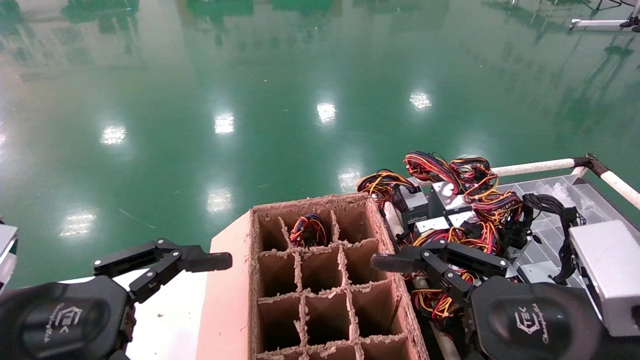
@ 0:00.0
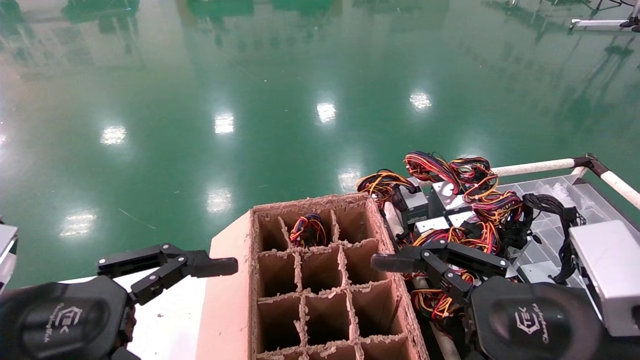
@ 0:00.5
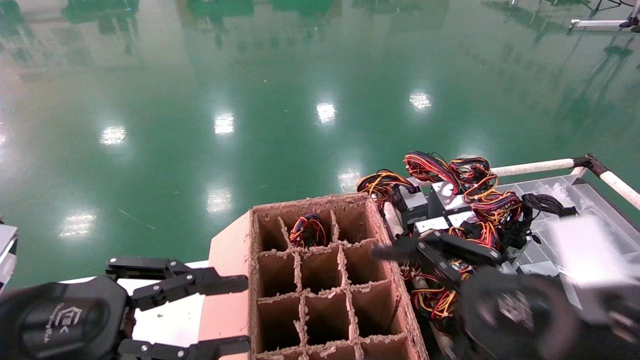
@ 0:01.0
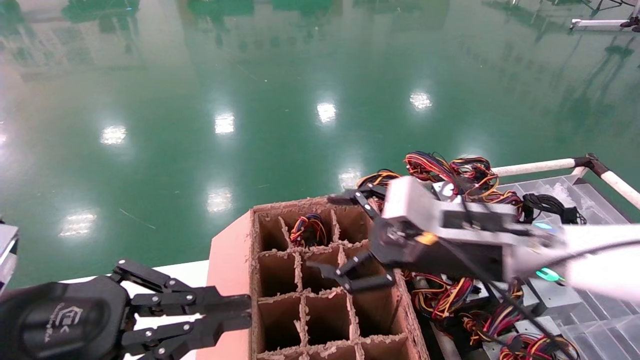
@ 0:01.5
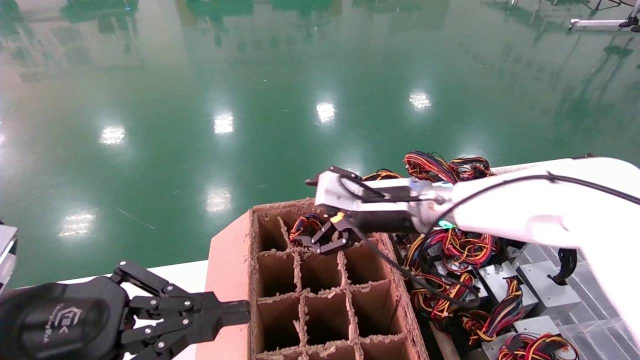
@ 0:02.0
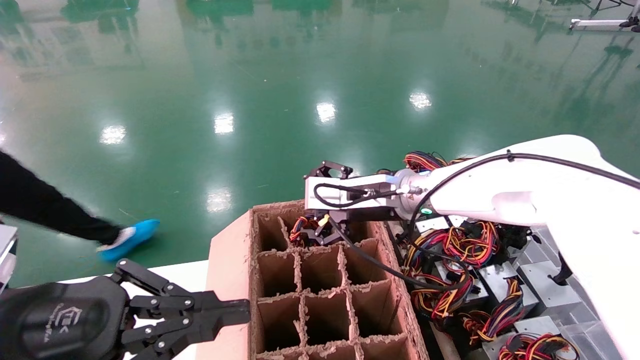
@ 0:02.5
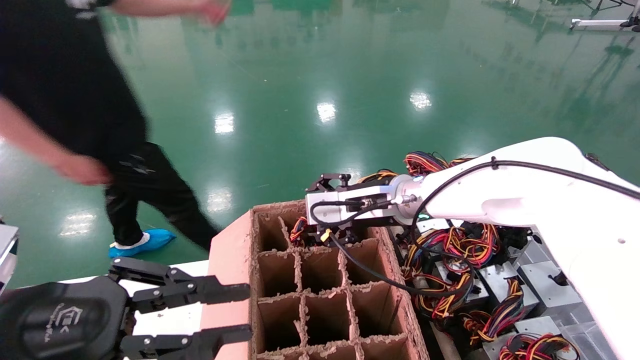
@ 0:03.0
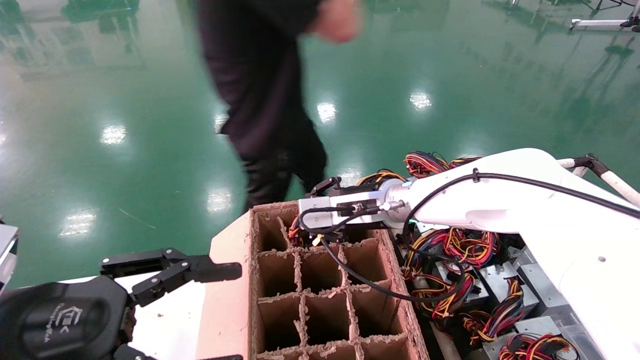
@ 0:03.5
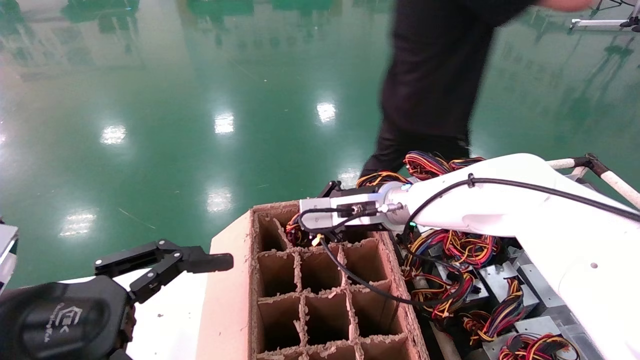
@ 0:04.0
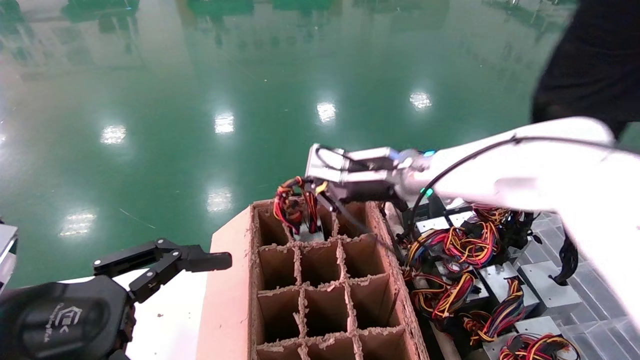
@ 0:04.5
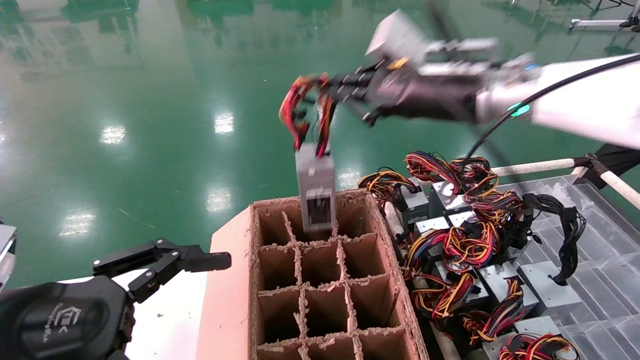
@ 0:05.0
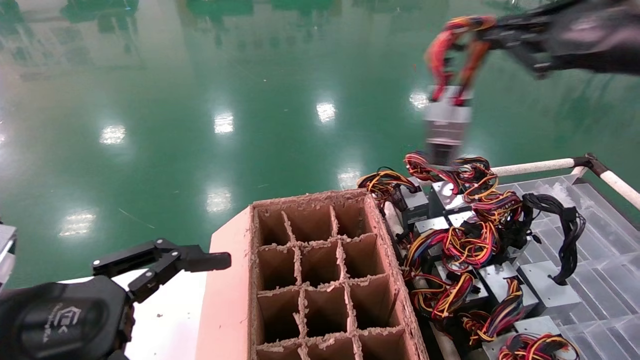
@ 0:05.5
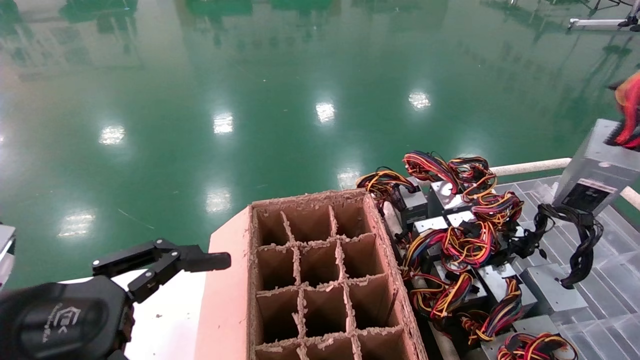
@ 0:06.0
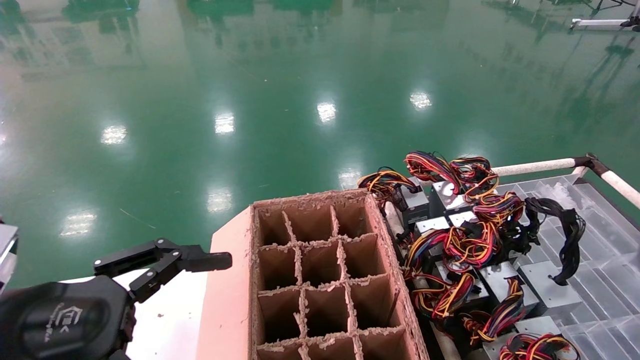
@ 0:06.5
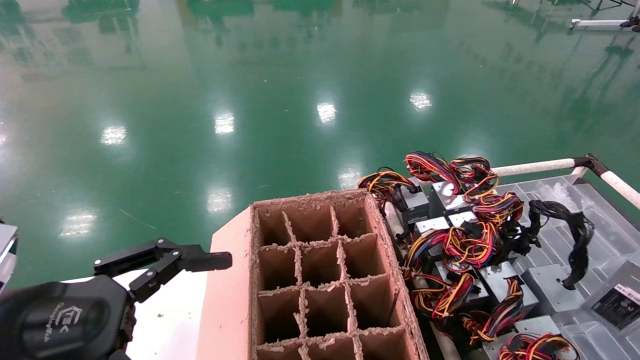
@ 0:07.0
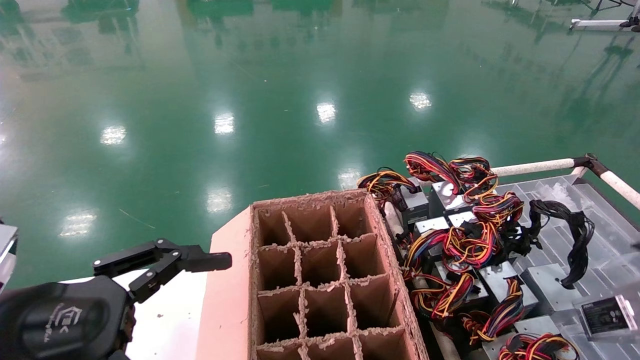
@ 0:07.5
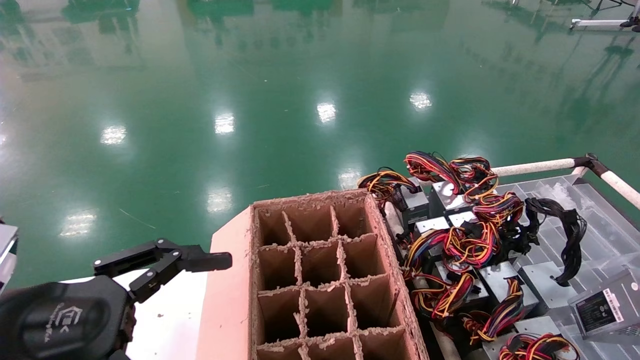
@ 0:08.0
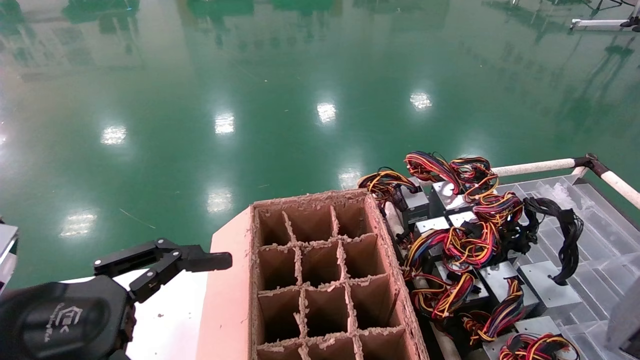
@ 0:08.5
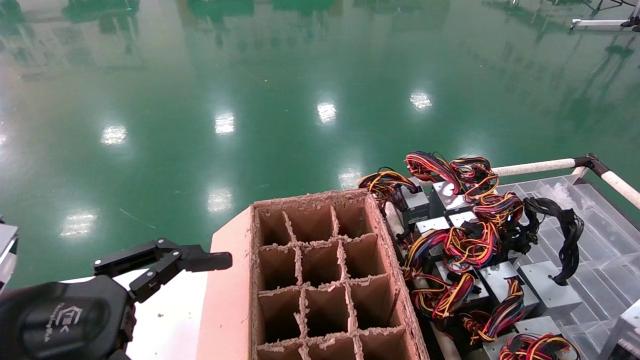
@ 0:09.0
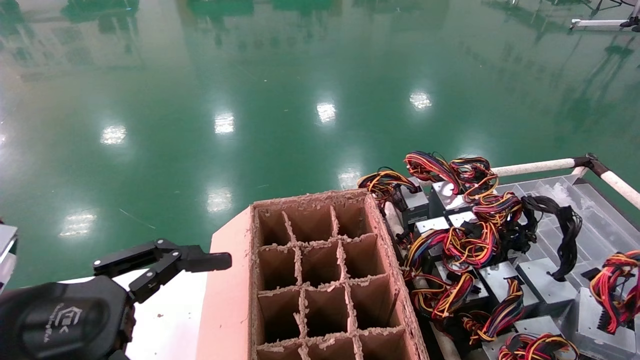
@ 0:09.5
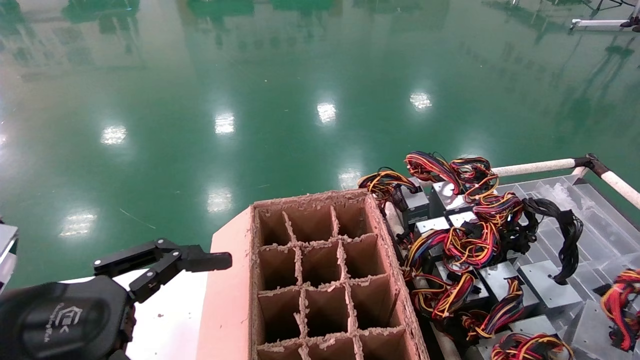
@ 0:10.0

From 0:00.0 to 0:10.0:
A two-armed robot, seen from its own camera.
Step, from 0:02.0 to 0:04.0: Grab and lift the power supply from the large box.
From 0:00.0 to 0:02.0: The right gripper goes some 25 cm forward and to the left. The left gripper closes its fingers.
From 0:02.0 to 0:04.0: The right gripper shifts by some 5 cm, and closes. The left gripper opens its fingers.
From 0:04.0 to 0:06.0: The right gripper goes approximately 50 cm to the right and backward.
From 0:06.0 to 0:08.0: The right gripper goes roughly 15 cm downward and backward.
From 0:08.0 to 0:10.0: The right gripper travels forward by approximately 5 cm.

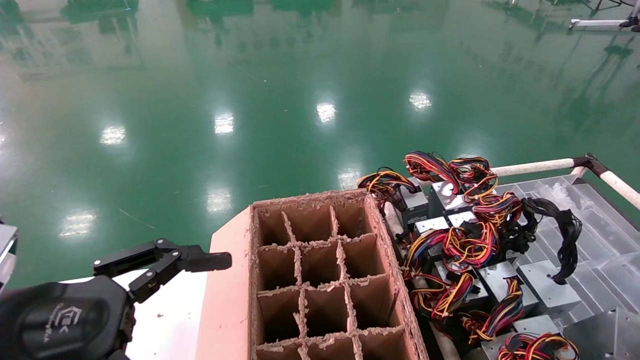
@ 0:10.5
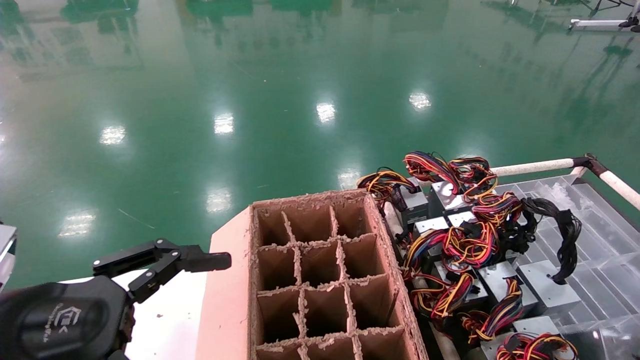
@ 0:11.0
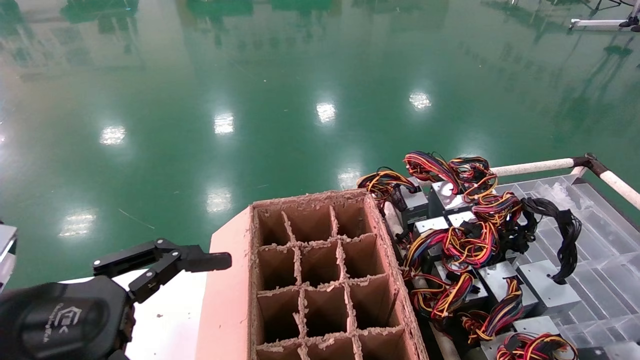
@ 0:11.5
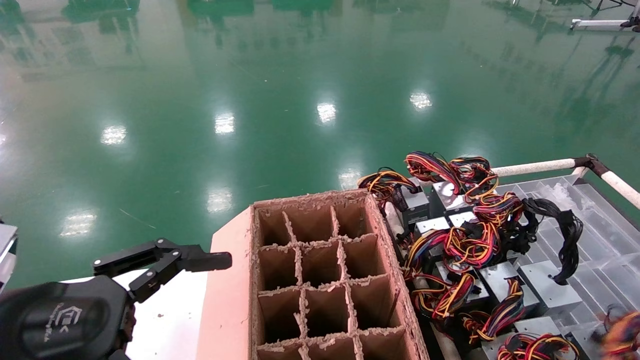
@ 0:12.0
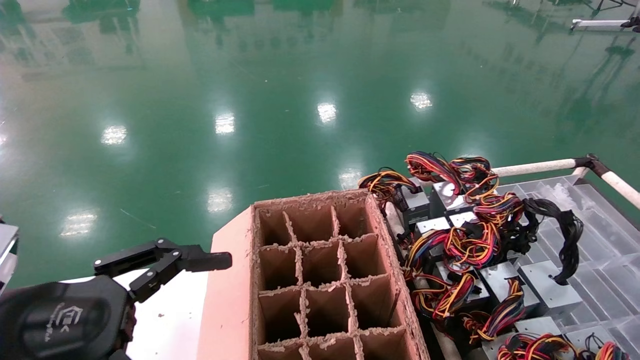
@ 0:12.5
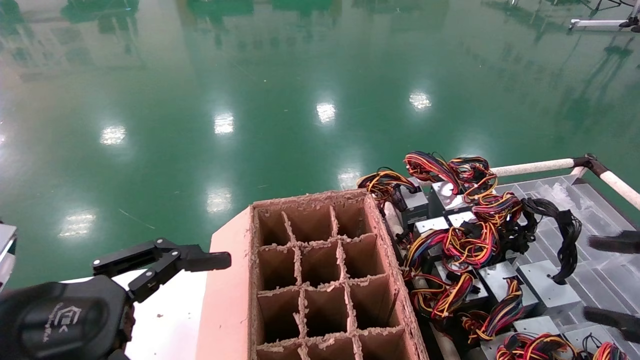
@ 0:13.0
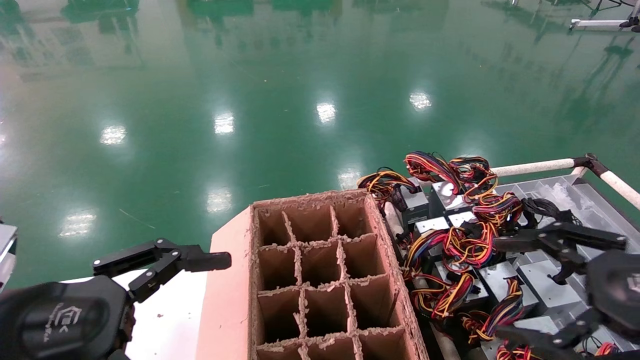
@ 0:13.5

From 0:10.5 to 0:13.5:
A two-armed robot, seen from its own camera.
From 0:10.5 to 0:12.0: There are only small adjustments of the grippers.
From 0:12.0 to 0:13.5: The right gripper shifts approximately 15 cm to the left, and opens up.
